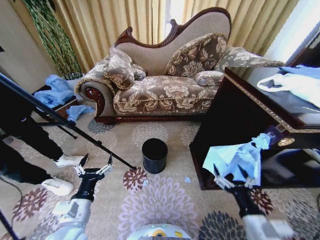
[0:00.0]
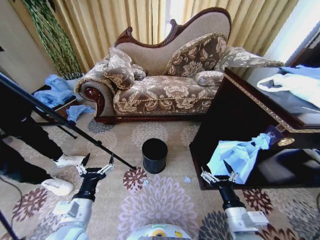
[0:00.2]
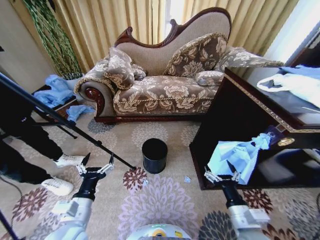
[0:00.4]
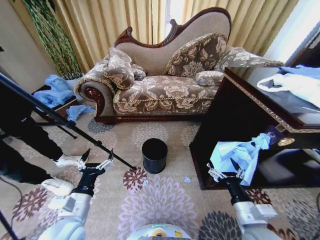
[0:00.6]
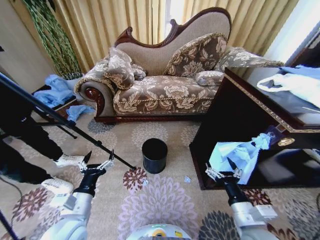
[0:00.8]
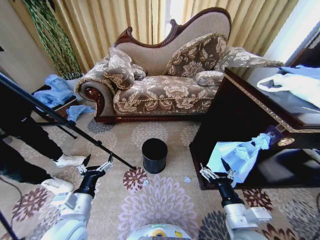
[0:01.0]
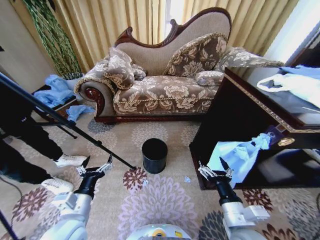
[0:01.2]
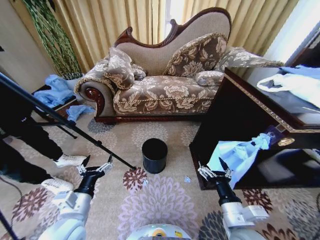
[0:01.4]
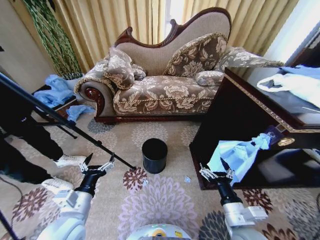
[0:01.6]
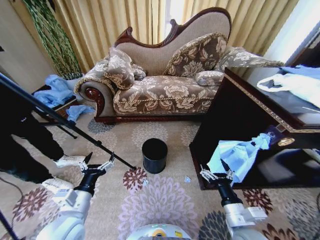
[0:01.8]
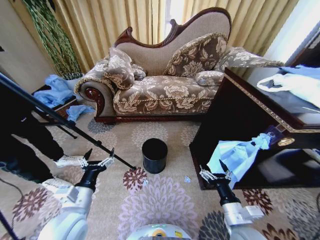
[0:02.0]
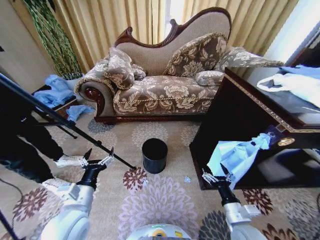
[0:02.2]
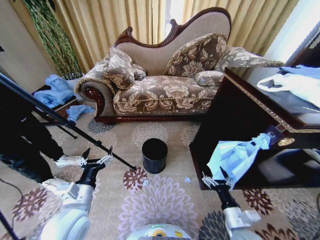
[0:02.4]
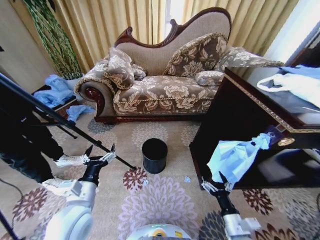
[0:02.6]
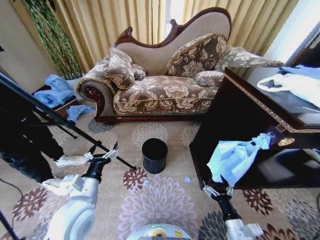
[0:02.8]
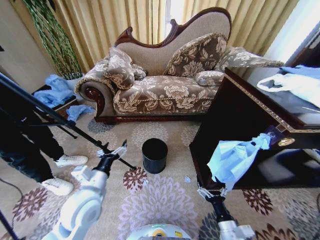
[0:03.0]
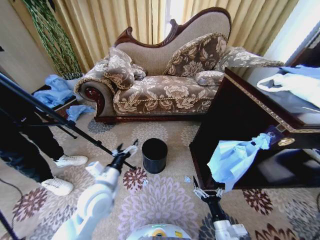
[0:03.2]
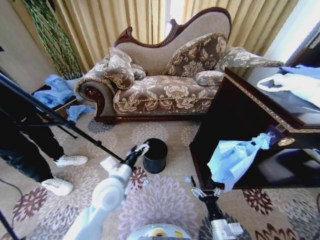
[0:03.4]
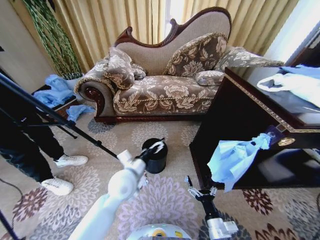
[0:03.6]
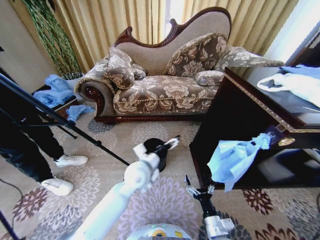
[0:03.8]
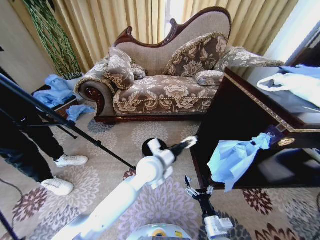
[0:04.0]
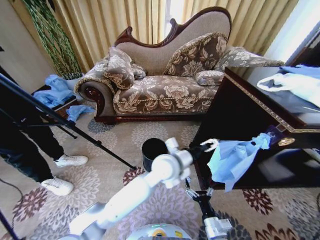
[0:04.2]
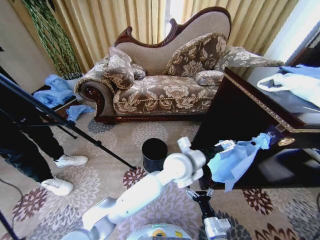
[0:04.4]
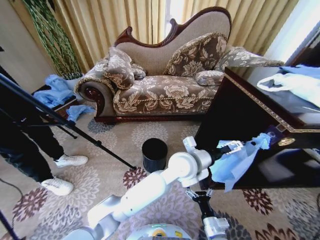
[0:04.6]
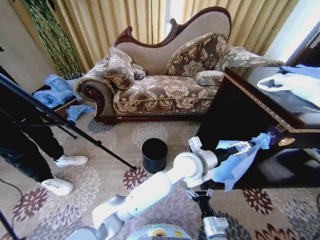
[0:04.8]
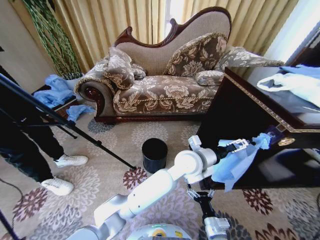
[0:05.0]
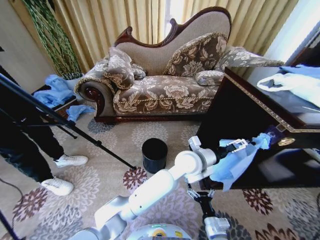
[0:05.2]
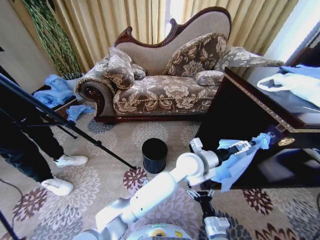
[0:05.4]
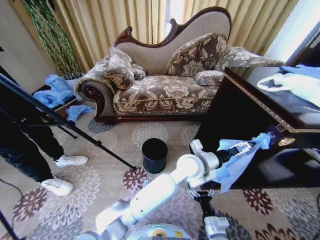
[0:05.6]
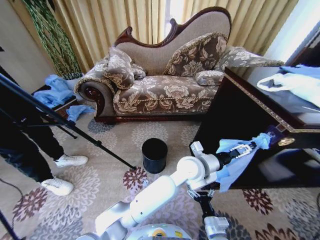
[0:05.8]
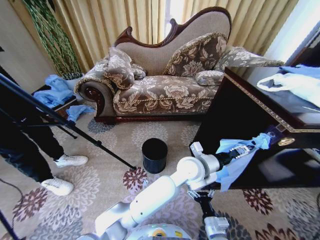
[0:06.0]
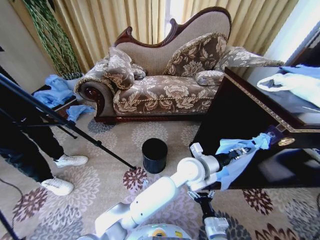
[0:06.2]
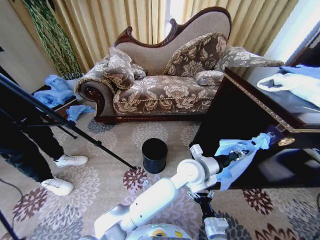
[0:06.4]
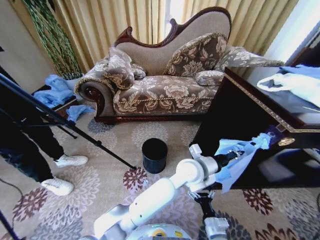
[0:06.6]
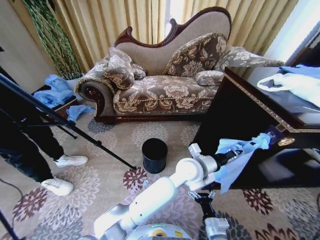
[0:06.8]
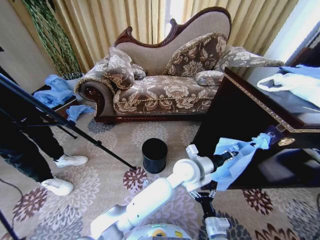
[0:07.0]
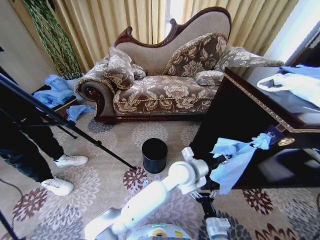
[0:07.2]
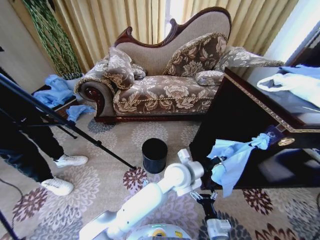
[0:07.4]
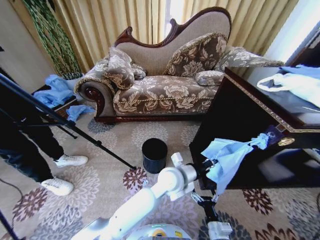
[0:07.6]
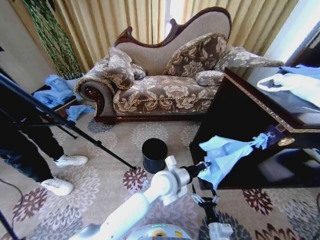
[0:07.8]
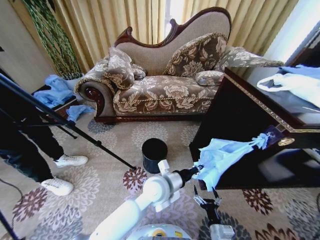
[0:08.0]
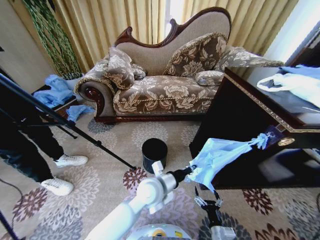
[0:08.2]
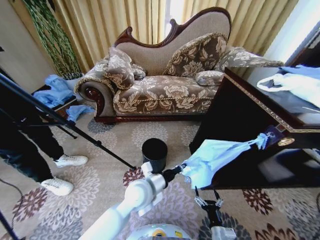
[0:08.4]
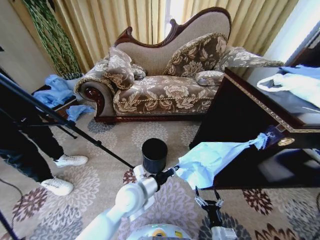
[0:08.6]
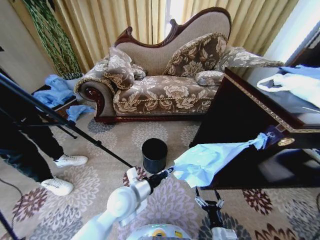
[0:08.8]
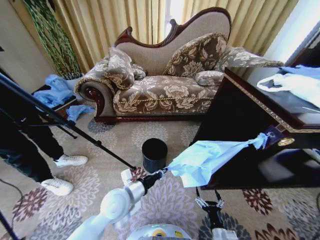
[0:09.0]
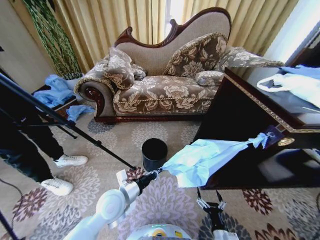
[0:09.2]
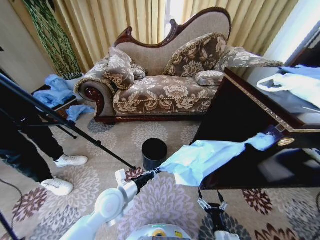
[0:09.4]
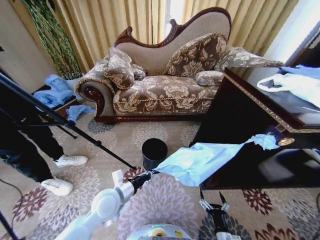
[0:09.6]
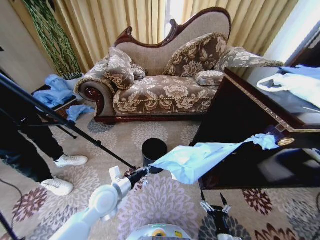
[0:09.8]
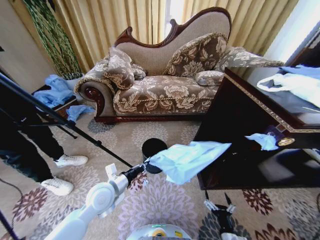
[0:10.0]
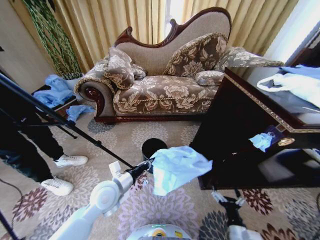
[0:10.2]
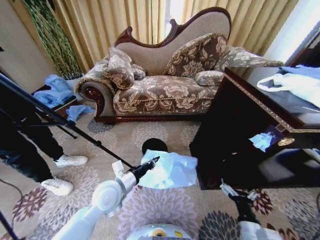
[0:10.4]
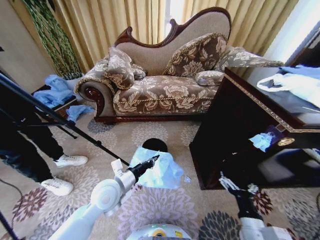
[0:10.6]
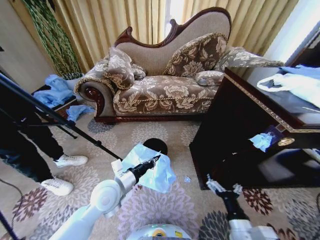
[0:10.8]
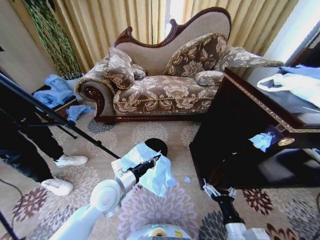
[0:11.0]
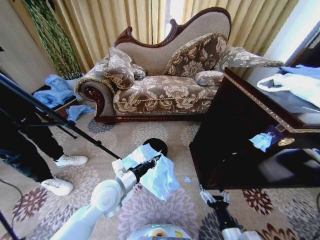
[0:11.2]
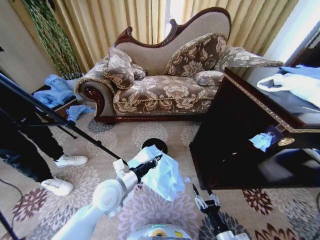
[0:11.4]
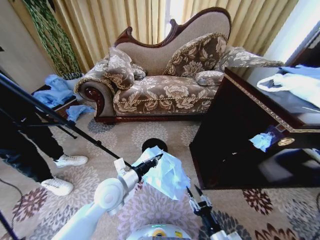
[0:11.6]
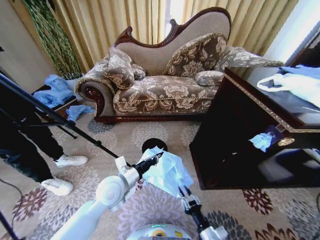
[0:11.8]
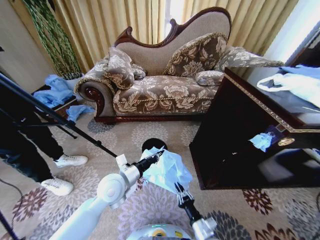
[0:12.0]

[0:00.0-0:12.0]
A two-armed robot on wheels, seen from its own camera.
Task of the whole recording: Place a garbage bag over the trash bin.
0:01.6 to 0:03.0: The right gripper moves downward, roughly 10 cm, while the left gripper travels forward by about 5 cm.
0:03.0 to 0:04.4: The left gripper goes about 30 cm to the right. The right gripper changes place by approximately 5 cm.
0:04.4 to 0:06.0: The left gripper shifts by some 5 cm.
0:06.0 to 0:07.6: The left gripper goes roughly 5 cm to the left, and closes up.
0:07.6 to 0:09.0: The left gripper heads to the left, covering about 20 cm.
0:09.0 to 0:10.4: The right gripper shifts approximately 10 cm upward and to the right.
0:10.4 to 0:12.0: The right gripper travels to the left and downward by approximately 15 cm, and closes up.

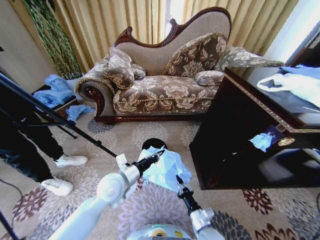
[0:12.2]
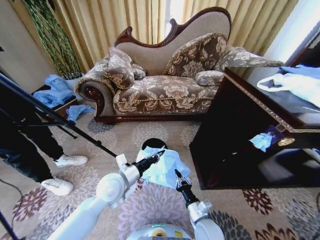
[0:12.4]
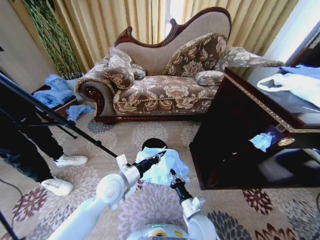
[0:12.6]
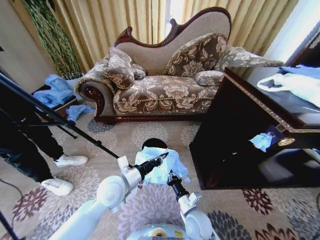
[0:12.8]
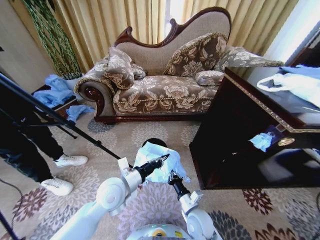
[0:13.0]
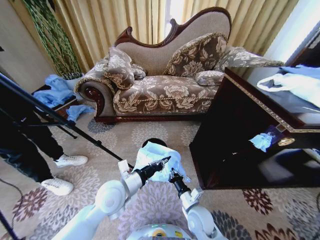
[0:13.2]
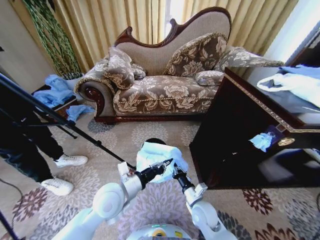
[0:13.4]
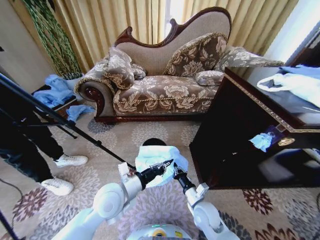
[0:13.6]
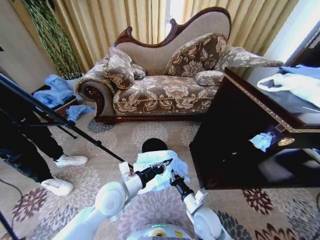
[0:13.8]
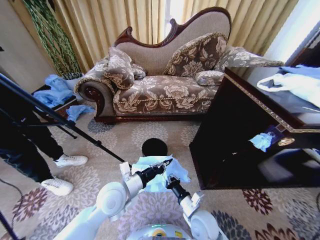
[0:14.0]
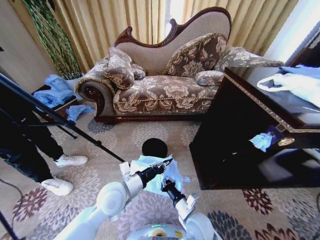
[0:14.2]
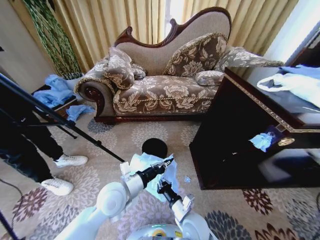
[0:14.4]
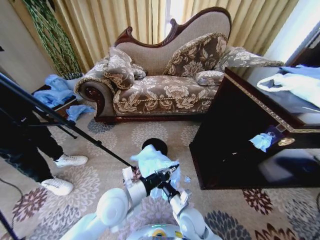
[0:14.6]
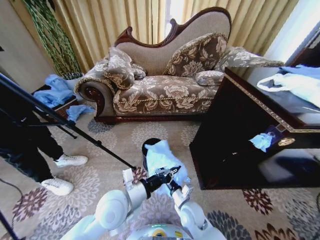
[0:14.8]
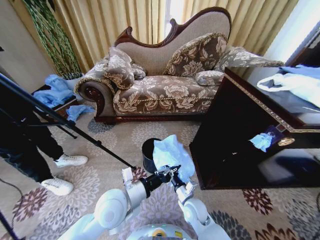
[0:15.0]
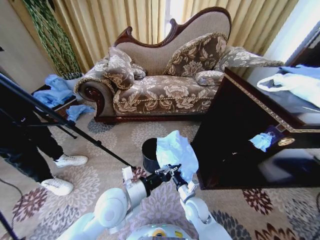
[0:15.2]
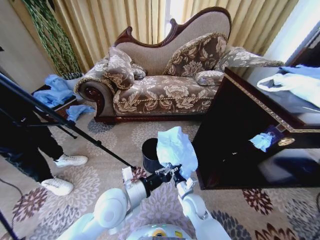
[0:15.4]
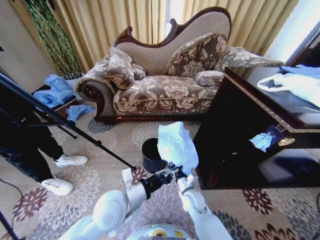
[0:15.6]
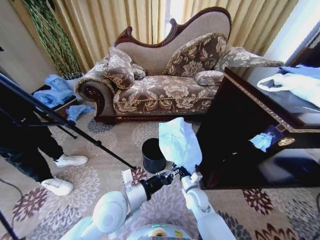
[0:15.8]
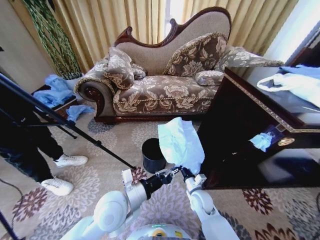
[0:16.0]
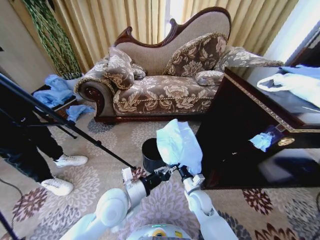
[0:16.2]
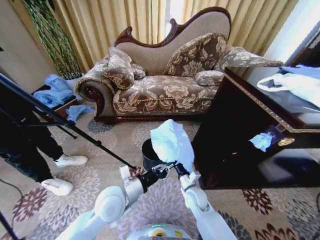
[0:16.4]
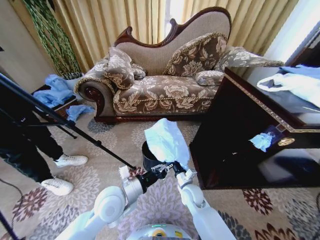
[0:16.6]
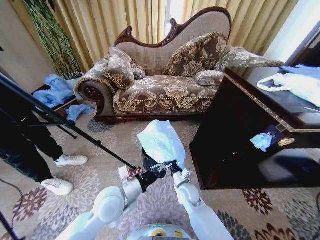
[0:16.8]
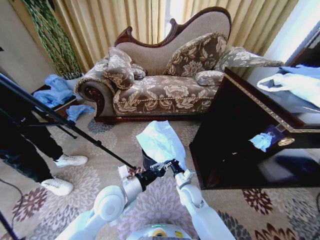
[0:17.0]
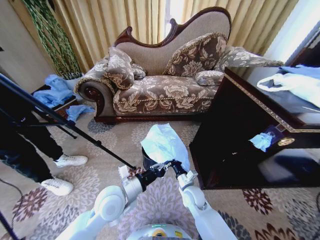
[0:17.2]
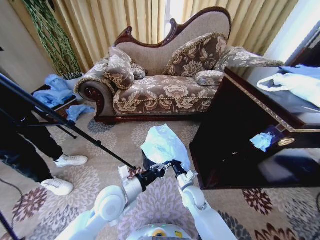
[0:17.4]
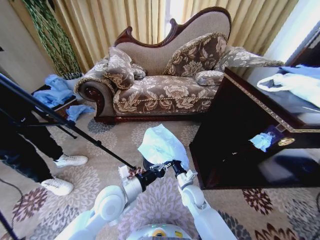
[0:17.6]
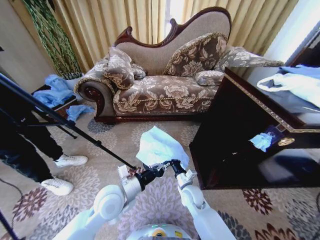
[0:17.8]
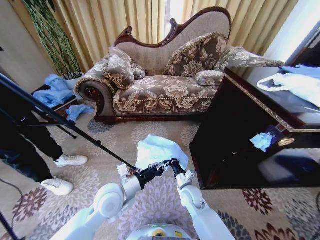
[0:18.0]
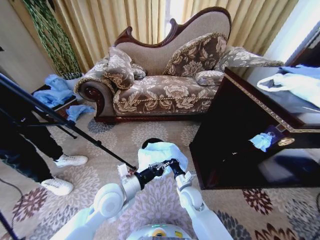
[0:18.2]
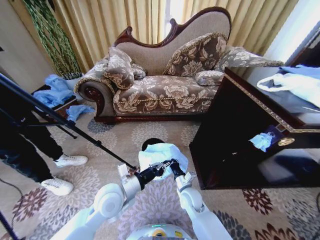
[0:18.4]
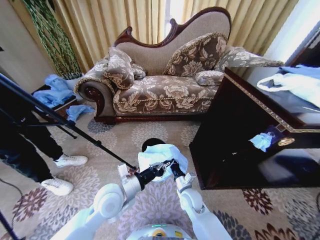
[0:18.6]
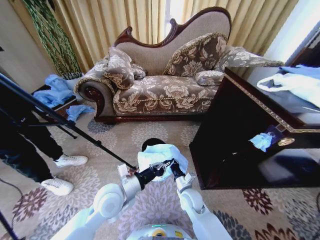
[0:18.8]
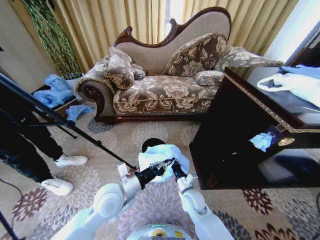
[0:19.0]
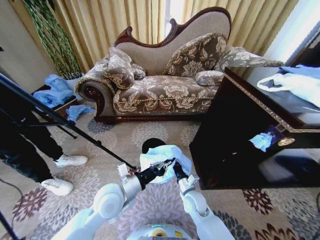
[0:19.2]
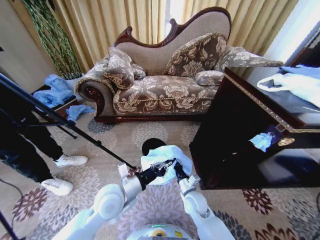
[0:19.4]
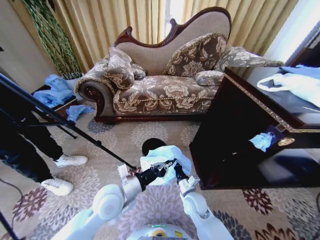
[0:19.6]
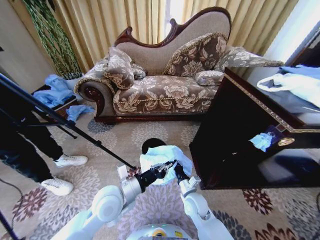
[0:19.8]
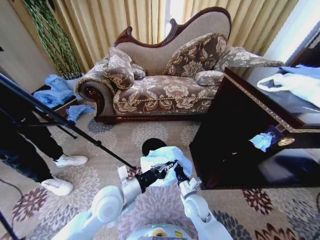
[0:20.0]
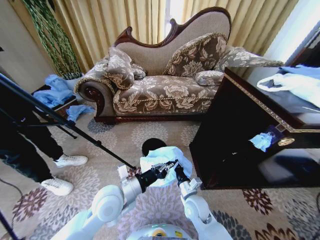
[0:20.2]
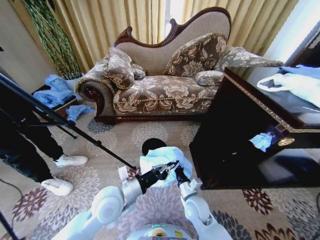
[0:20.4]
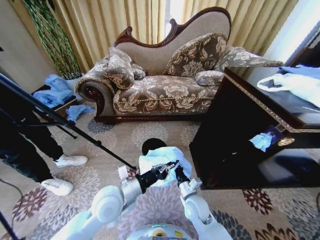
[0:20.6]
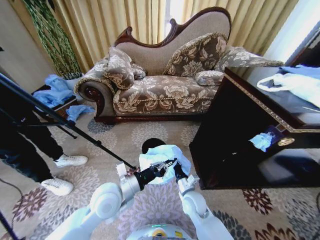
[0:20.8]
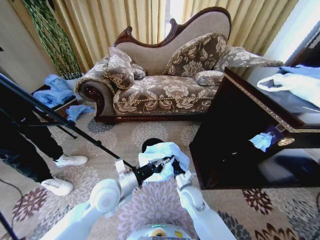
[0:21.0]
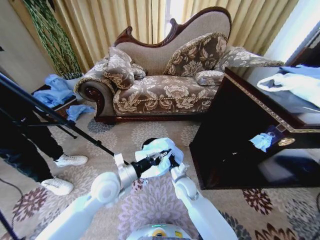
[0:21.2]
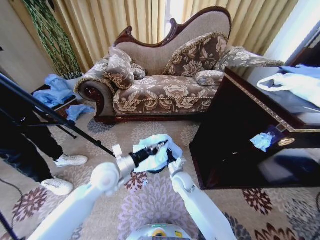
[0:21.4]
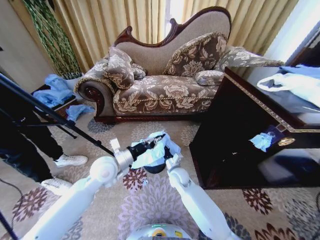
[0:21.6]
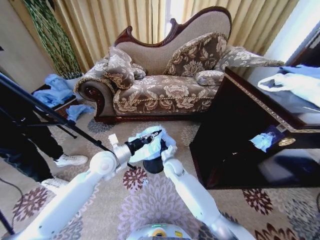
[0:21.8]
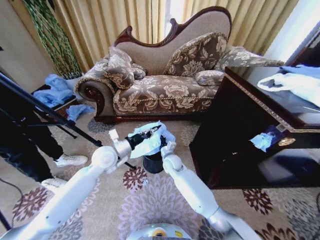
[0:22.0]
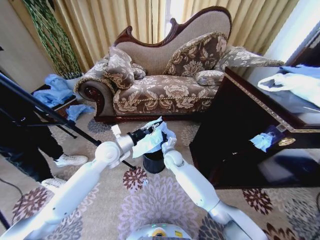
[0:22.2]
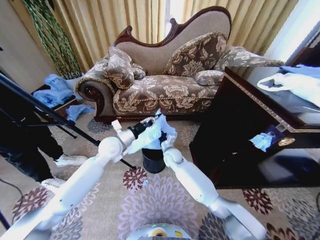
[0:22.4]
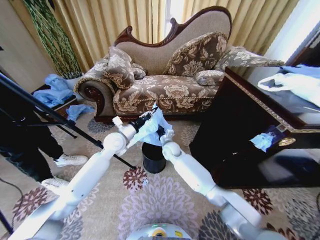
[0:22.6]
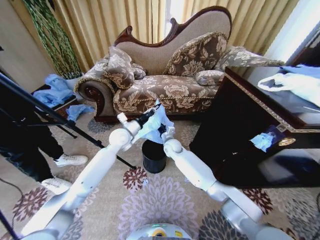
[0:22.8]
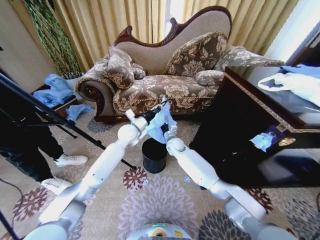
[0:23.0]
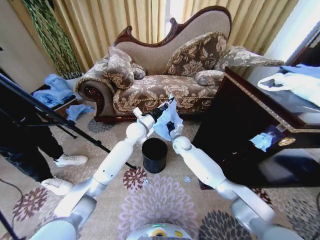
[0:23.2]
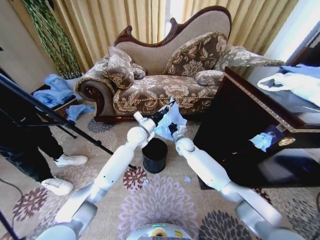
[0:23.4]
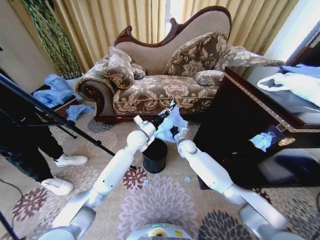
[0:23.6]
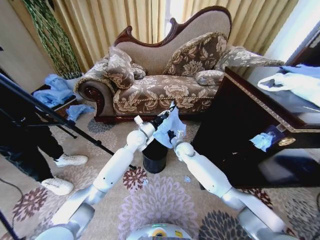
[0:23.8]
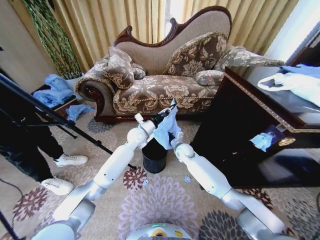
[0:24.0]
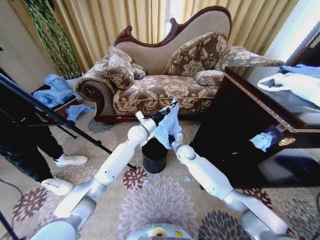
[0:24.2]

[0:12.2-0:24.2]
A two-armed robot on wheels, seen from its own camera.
Task of the whole recording: Place a garbage bag over the trash bin.
0:12.2 to 0:13.8: The right gripper travels forward by approximately 5 cm.
0:13.8 to 0:15.2: The right gripper ends up roughly 5 cm from where it was.
0:15.2 to 0:16.6: The right gripper goes some 5 cm forward.
0:16.6 to 0:19.8: The grippers stay close to where they were, moving slightly.
0:19.8 to 0:21.2: The right gripper heads forward, covering some 5 cm.
0:21.2 to 0:22.6: Both grippers travel together forward, about 15 cm.
0:22.6 to 0:24.2: The right gripper moves to the right, approximately 10 cm. Meanwhile the left gripper is displaced to the right and forward by about 10 cm.
